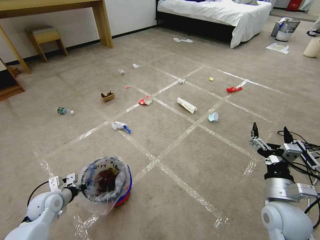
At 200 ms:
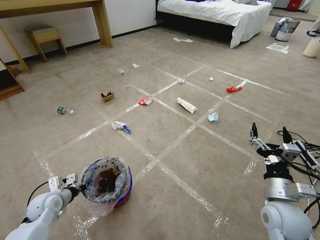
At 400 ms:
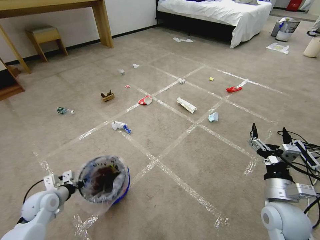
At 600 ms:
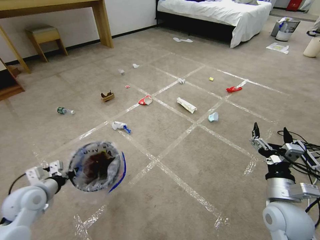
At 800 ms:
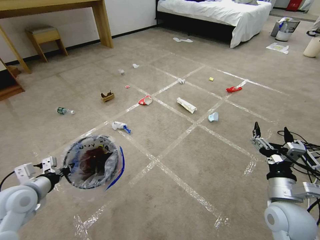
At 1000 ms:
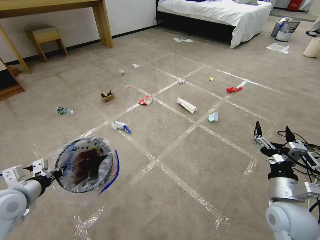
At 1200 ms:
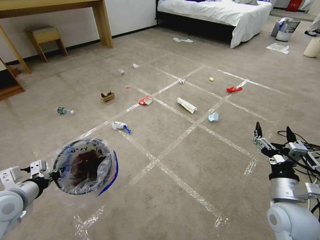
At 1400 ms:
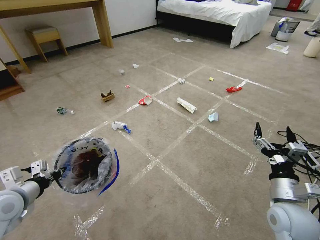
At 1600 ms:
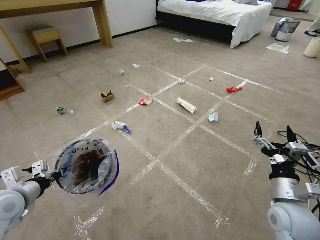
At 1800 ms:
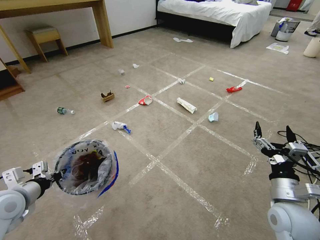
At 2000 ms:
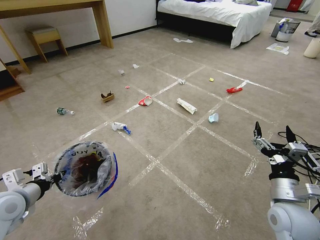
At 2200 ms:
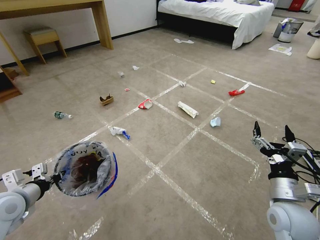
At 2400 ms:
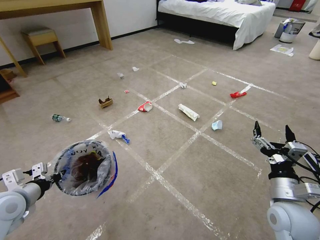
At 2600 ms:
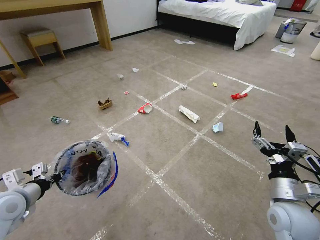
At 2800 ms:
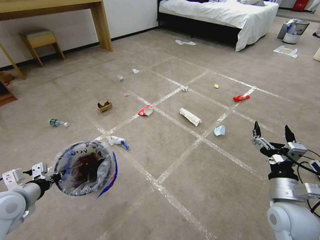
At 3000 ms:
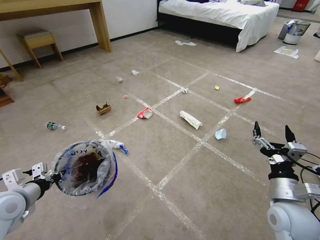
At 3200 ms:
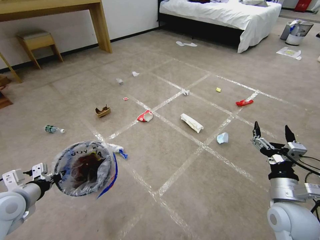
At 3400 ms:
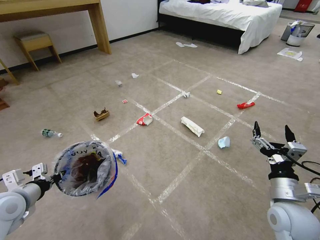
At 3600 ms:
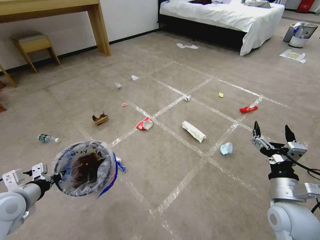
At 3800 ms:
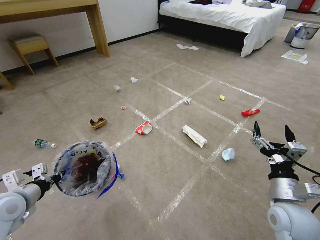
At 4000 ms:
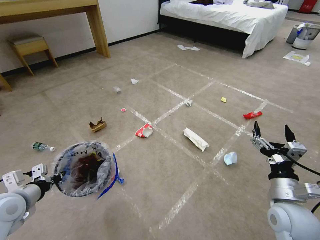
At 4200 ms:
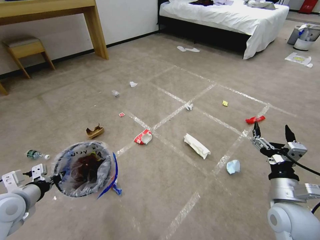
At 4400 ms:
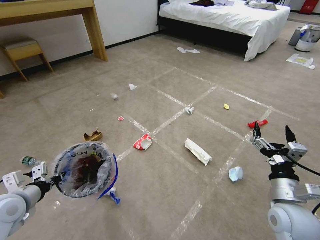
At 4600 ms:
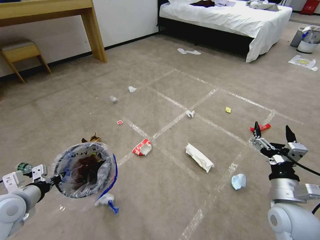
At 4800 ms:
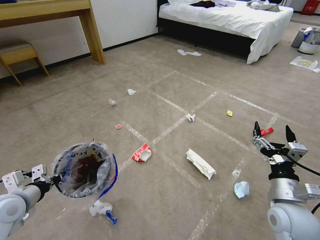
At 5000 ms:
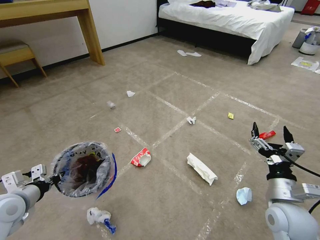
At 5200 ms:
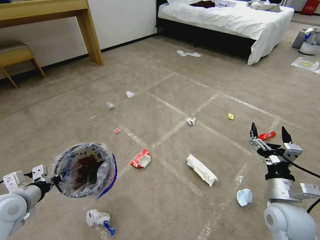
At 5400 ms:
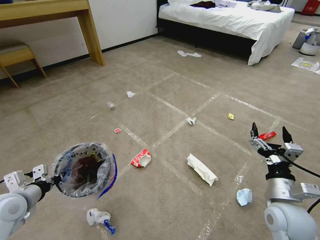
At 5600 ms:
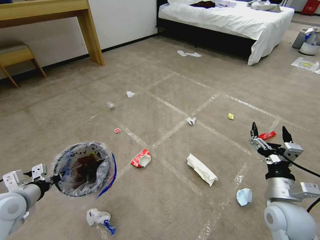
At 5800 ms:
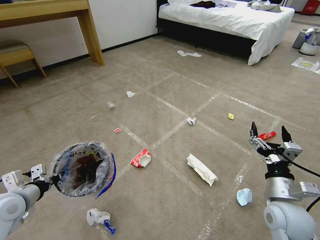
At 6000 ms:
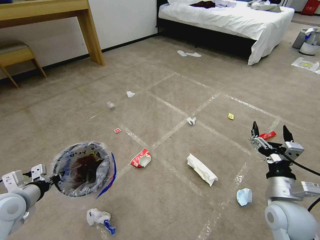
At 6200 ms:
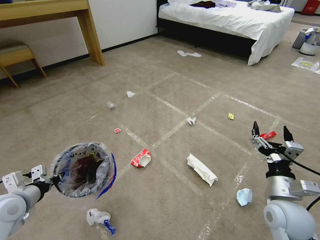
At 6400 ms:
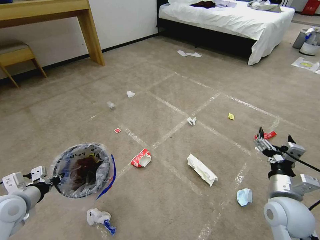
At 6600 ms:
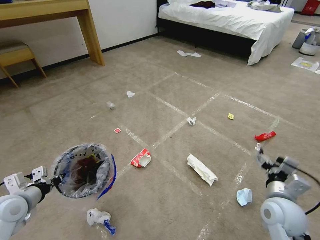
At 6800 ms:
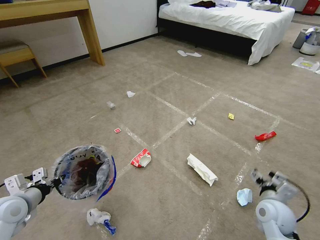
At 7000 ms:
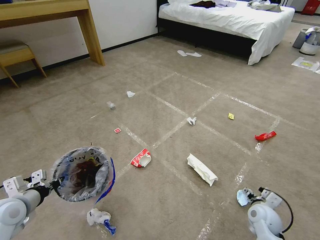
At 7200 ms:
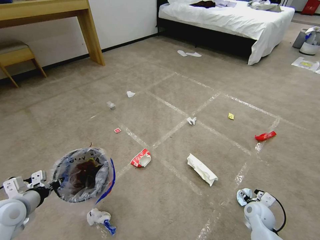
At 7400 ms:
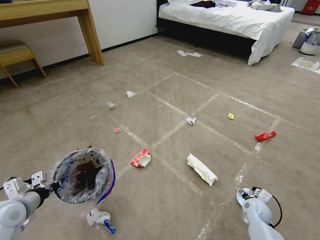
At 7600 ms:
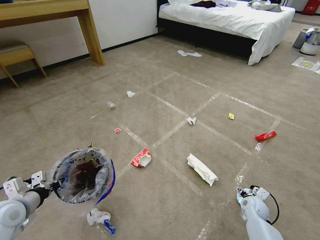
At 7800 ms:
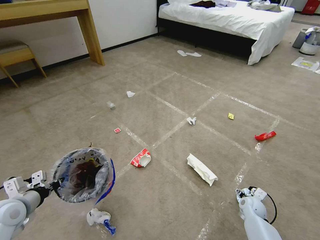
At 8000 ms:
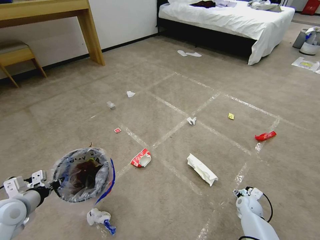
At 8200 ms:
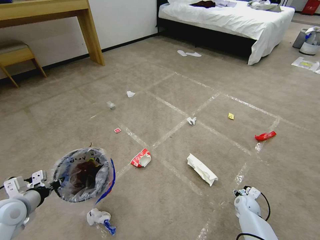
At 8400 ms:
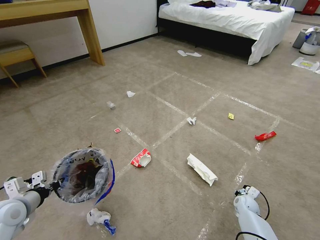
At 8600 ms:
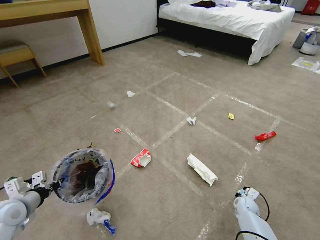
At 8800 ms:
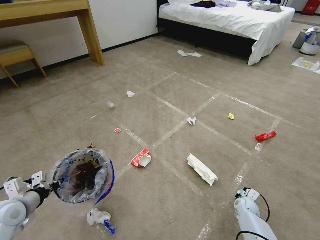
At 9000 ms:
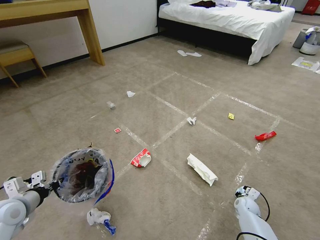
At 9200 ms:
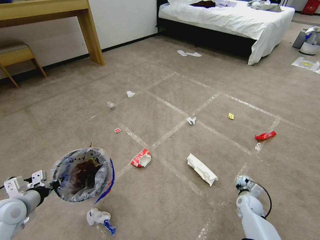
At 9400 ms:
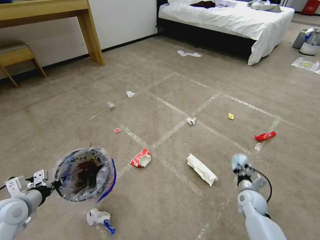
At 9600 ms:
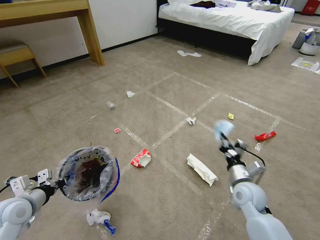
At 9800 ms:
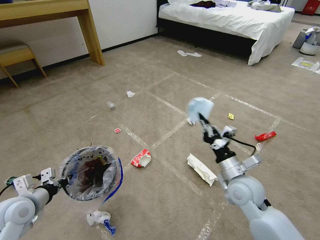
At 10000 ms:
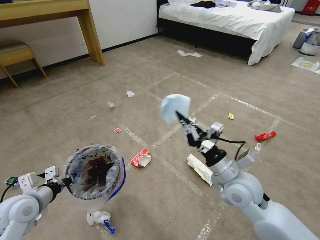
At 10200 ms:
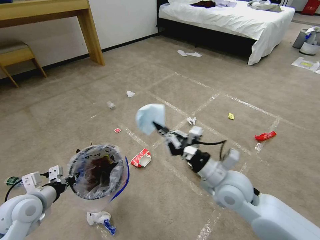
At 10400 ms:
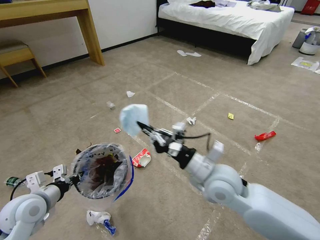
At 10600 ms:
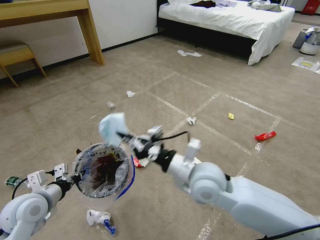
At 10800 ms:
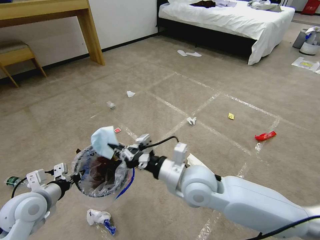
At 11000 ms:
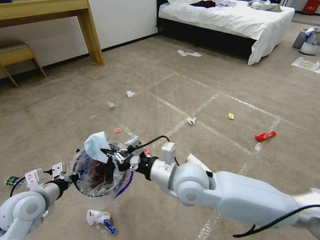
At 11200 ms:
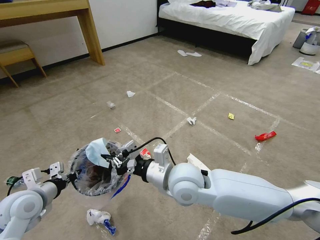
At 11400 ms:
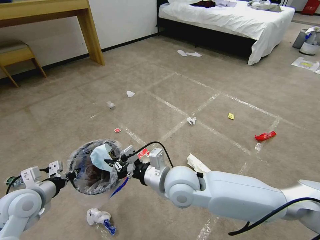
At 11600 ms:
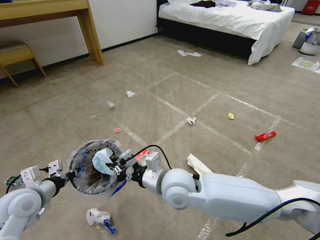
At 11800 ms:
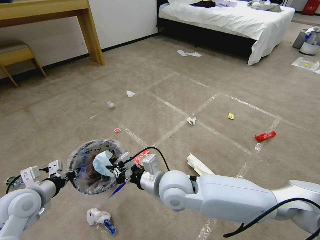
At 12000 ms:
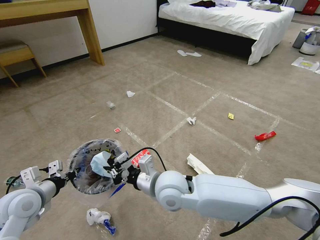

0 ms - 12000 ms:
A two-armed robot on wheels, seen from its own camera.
Task of the whole recording: Pick up the trash bin and place the garbage on the floor into it.
0 ms - 1600 ms: The left gripper heads upward, covering some 15 cm.
1600 ms - 3000 ms: Neither gripper changes place.
4400 ms - 6000 ms: Neither gripper changes place.
6000 ms - 7600 ms: The right gripper heads downward and forward, covering roughly 25 cm.
7600 ms - 9000 ms: The right gripper moves downward, approximately 5 cm, and closes its fingers.
9000 ms - 10400 ms: The left gripper goes approximately 5 cm to the right. The right gripper is displaced upward and to the left by some 40 cm.
10400 ms - 12000 ms: The right gripper goes some 15 cm to the left.

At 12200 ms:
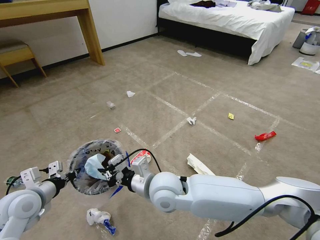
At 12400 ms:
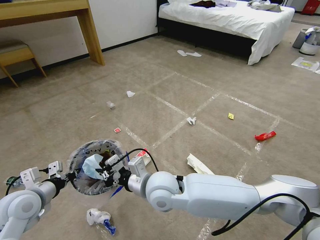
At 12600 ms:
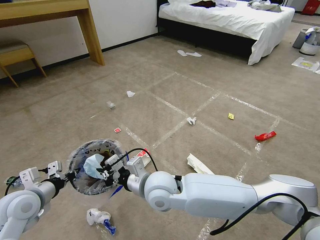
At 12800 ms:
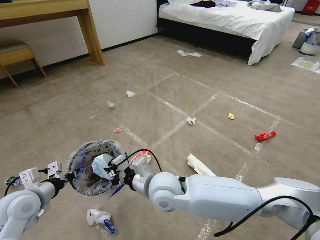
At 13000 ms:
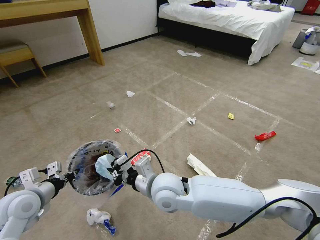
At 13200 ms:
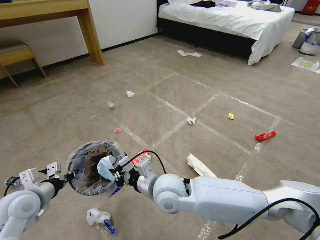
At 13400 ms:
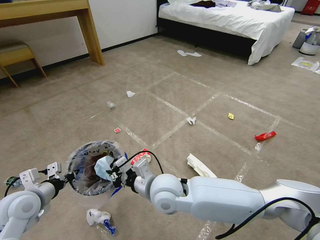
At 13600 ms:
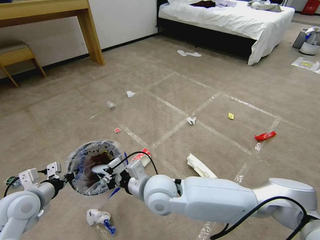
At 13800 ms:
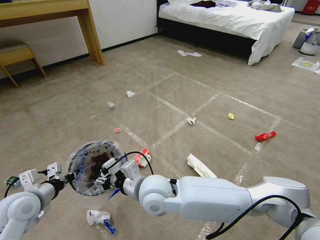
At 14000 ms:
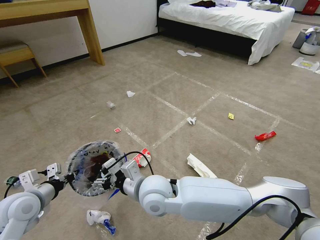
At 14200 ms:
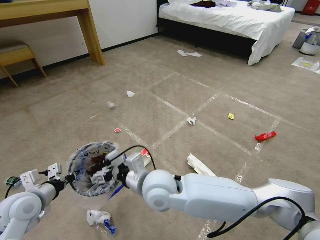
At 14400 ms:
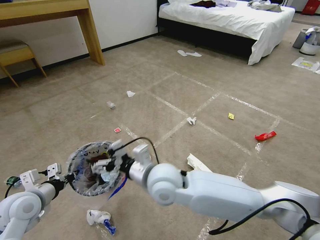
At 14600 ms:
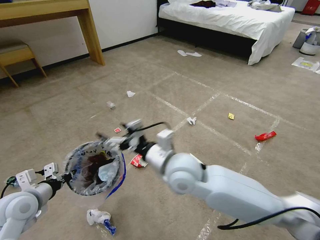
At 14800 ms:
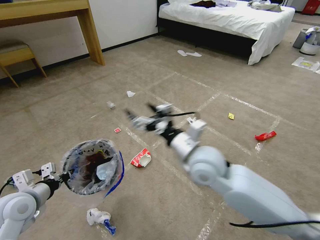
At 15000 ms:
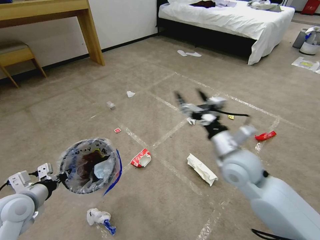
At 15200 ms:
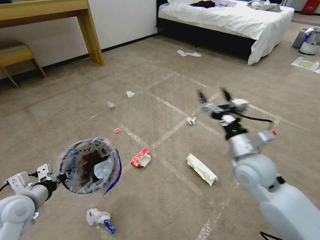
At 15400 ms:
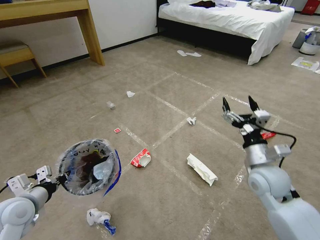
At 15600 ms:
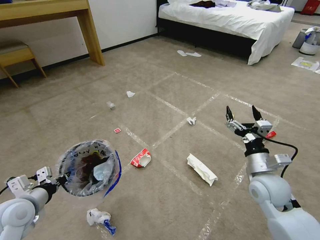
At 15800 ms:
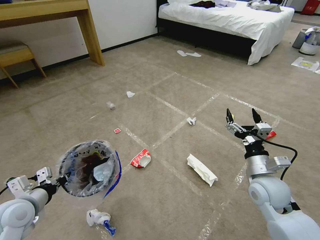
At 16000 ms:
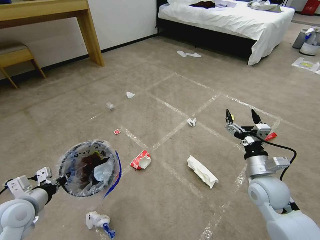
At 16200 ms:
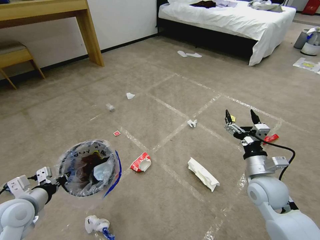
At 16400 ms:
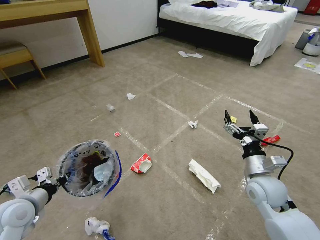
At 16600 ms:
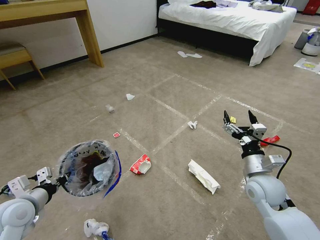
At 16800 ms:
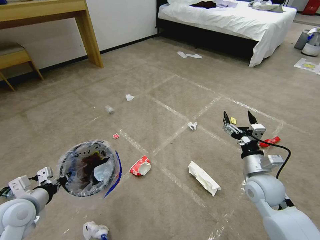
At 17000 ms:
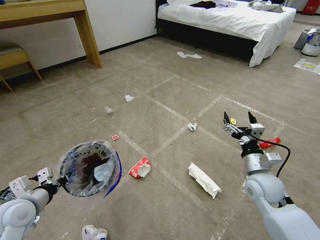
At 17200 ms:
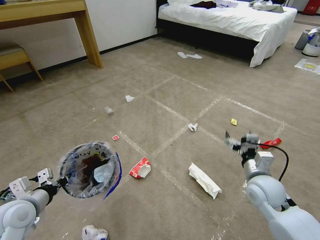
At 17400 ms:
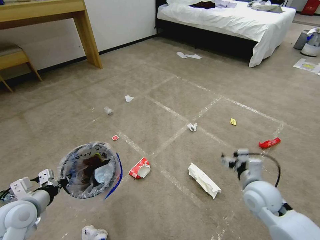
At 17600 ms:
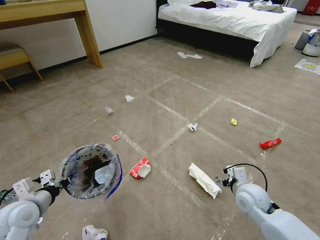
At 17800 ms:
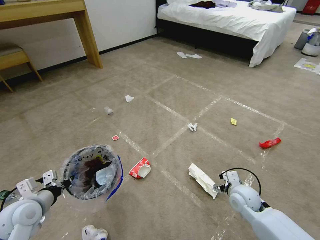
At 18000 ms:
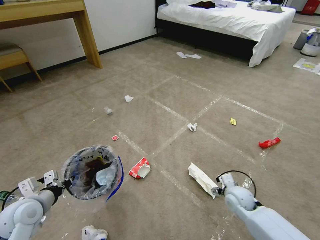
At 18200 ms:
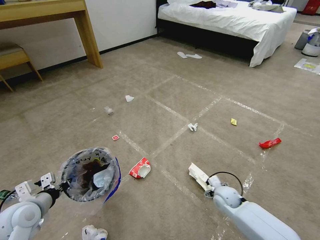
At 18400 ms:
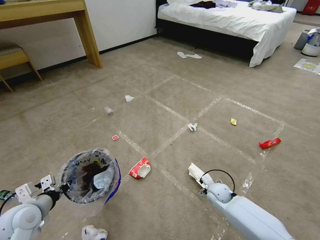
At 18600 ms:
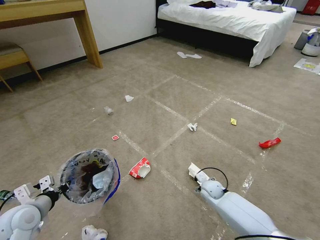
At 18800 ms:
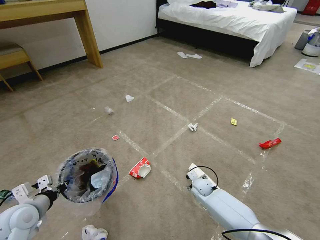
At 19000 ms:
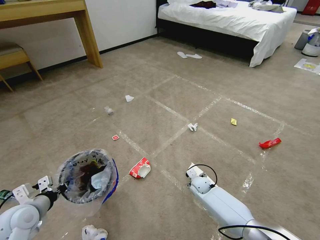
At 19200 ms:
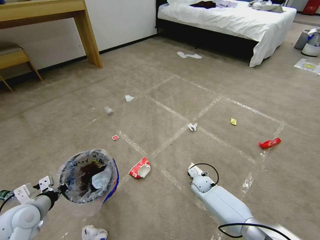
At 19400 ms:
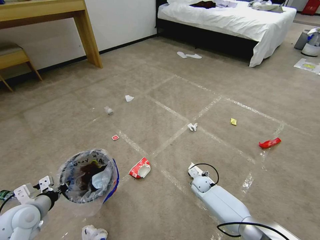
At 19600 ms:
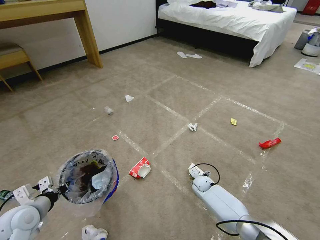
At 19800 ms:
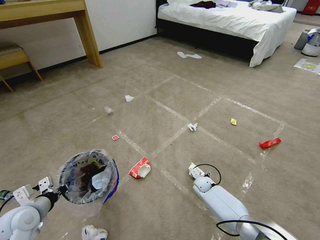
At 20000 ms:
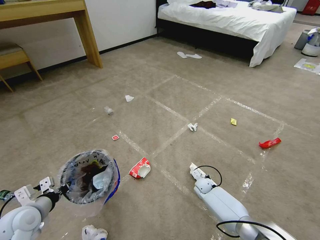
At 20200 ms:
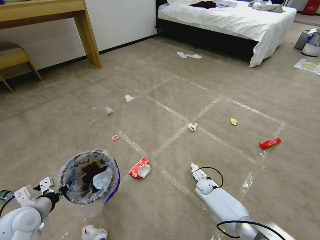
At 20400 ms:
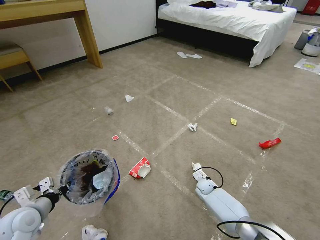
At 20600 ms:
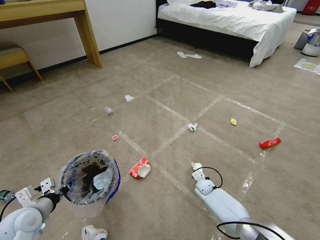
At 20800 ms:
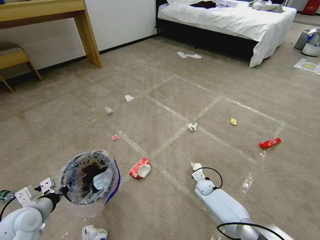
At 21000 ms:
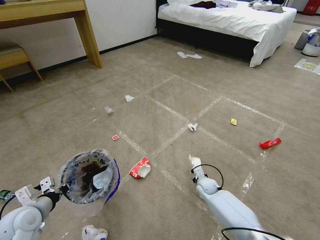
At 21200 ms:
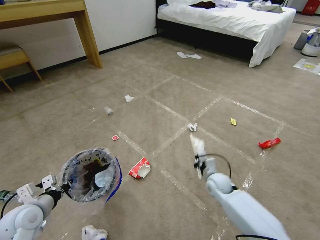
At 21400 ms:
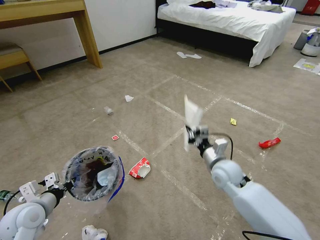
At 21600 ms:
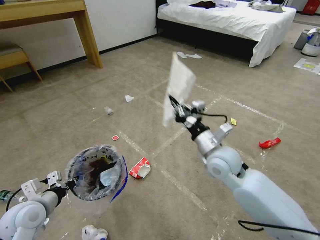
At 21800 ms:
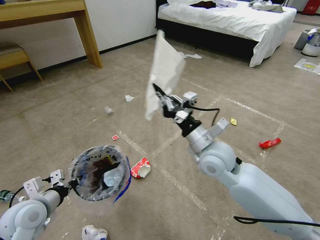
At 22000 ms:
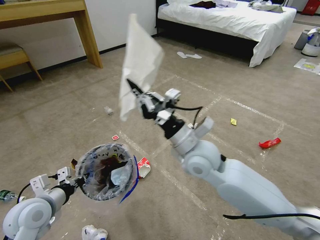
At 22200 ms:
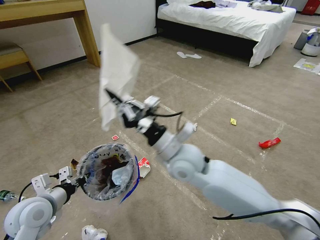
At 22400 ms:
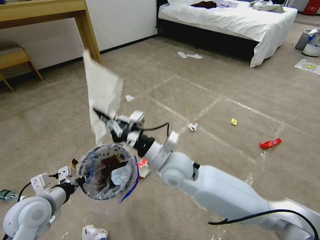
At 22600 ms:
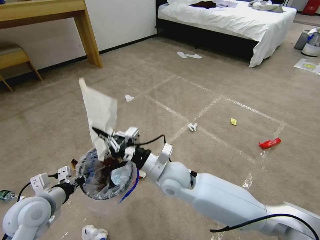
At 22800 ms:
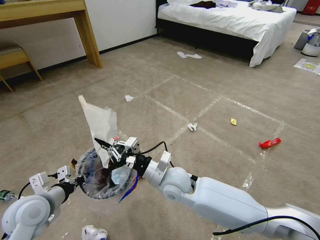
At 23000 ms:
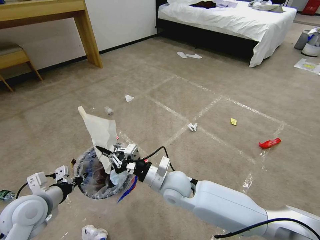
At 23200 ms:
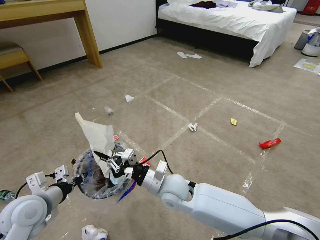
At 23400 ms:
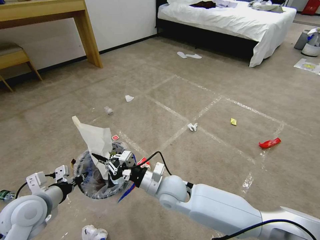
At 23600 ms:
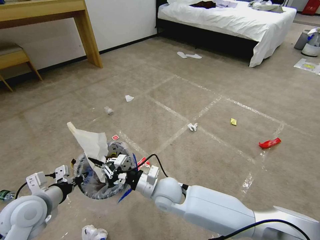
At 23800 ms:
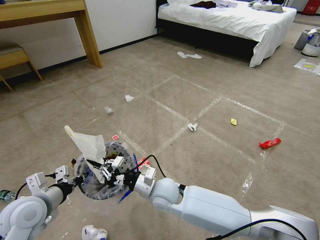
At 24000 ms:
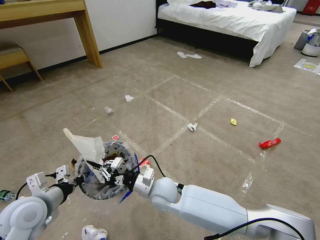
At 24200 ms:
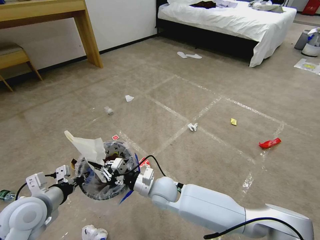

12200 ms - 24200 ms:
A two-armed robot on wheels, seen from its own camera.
Task of the whole recording: Pick up the trash bin and place the garbage on the floor into it.
12200 ms - 13800 ms: The right gripper opens up.
13800 ms - 15200 ms: The right gripper is displaced to the right by roughly 30 cm, and opens its fingers.
15200 ms - 16600 ms: The right gripper travels downward and to the right by approximately 10 cm.
16600 ms - 18200 ms: The right gripper moves downward, roughly 20 cm.
18200 ms - 19800 ms: The right gripper heads downward, forward and to the left, covering about 15 cm.
19800 ms - 21200 ms: The right gripper moves upward, roughly 15 cm, and closes up.
21200 ms - 22600 ms: The right gripper is displaced to the left and upward by roughly 25 cm, while the left gripper changes place by approximately 5 cm.
22600 ms - 24200 ms: The right gripper shifts some 10 cm downward.
